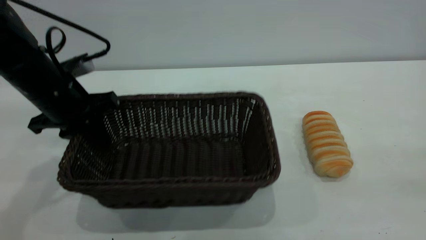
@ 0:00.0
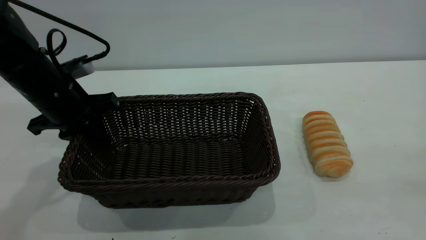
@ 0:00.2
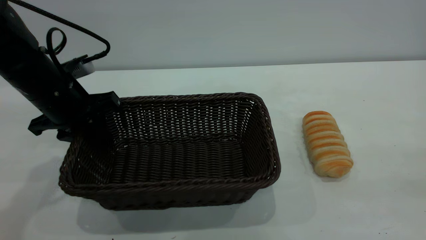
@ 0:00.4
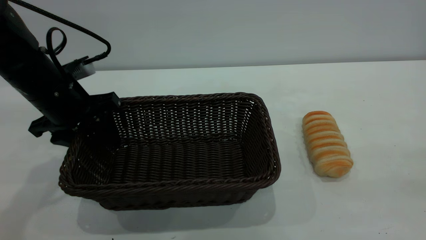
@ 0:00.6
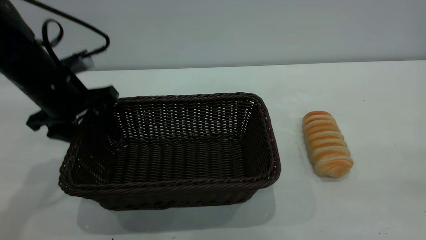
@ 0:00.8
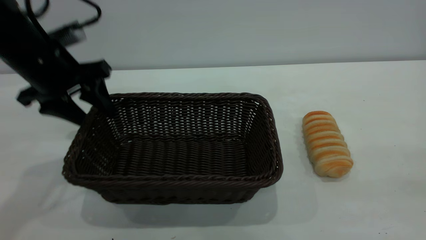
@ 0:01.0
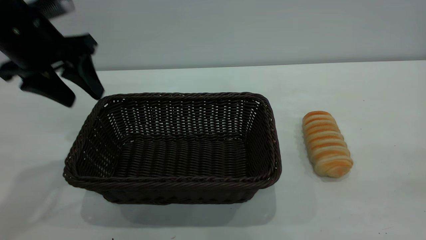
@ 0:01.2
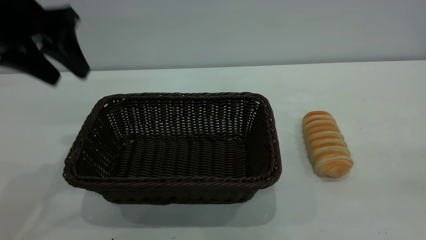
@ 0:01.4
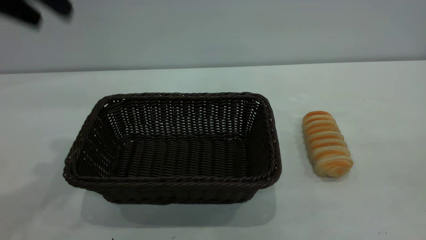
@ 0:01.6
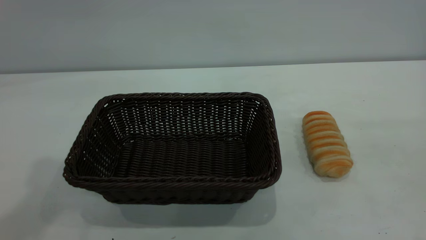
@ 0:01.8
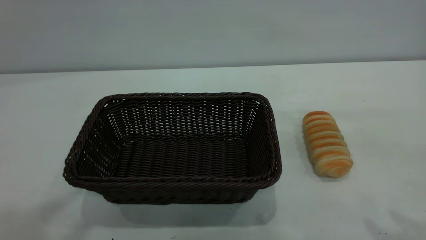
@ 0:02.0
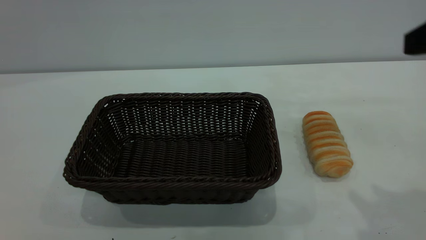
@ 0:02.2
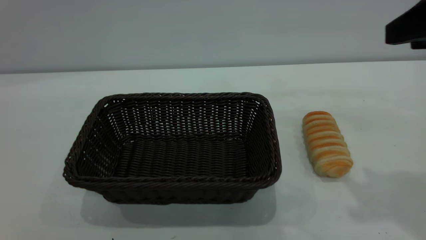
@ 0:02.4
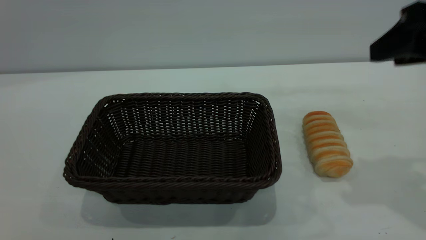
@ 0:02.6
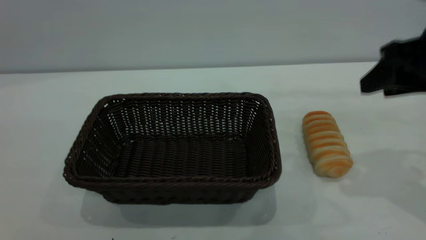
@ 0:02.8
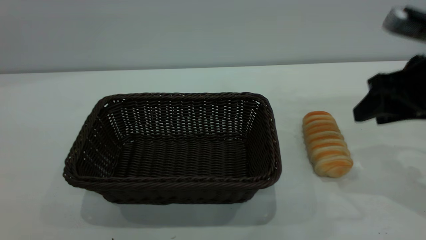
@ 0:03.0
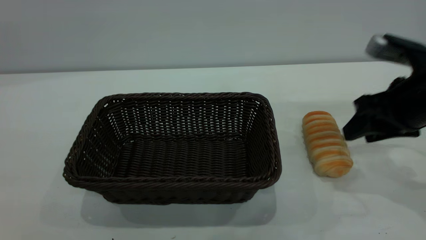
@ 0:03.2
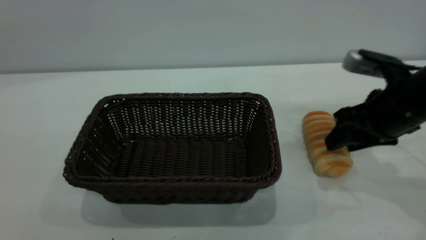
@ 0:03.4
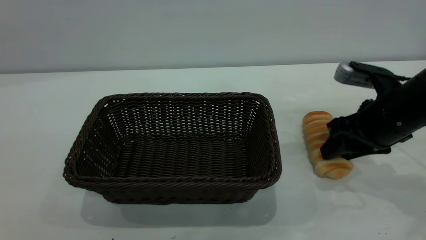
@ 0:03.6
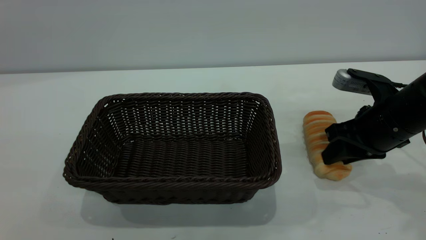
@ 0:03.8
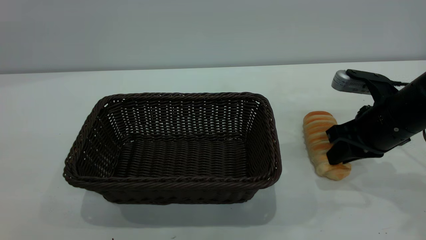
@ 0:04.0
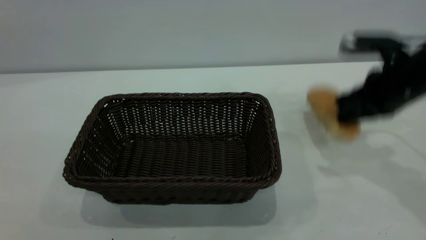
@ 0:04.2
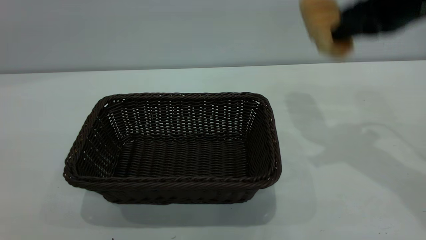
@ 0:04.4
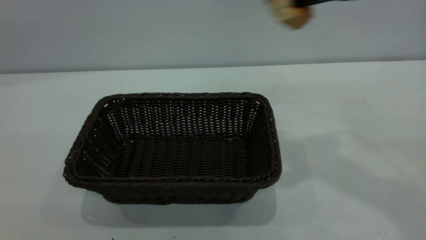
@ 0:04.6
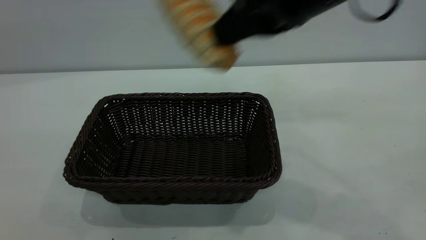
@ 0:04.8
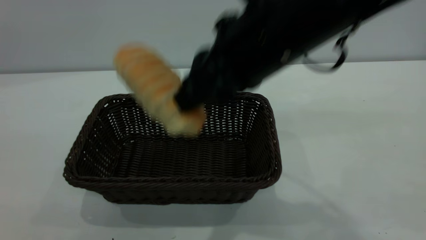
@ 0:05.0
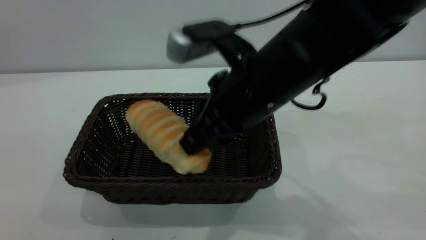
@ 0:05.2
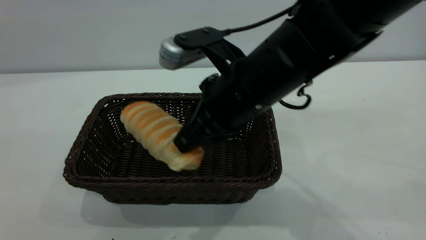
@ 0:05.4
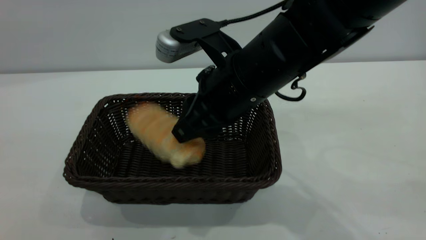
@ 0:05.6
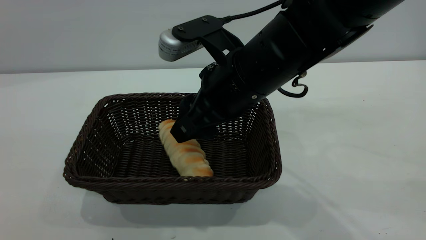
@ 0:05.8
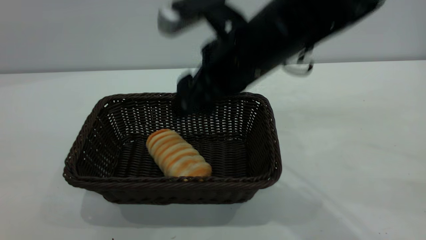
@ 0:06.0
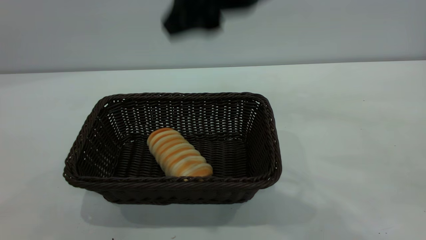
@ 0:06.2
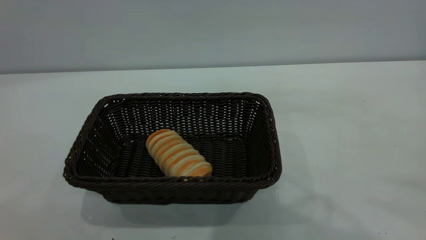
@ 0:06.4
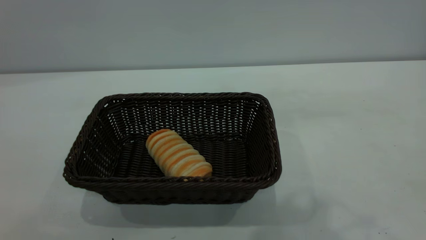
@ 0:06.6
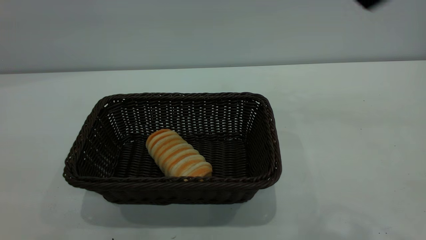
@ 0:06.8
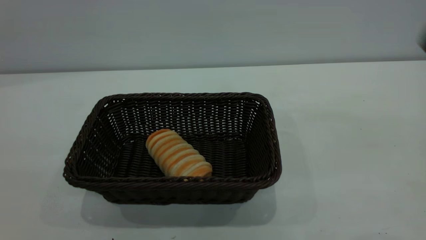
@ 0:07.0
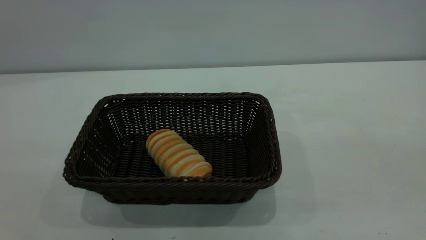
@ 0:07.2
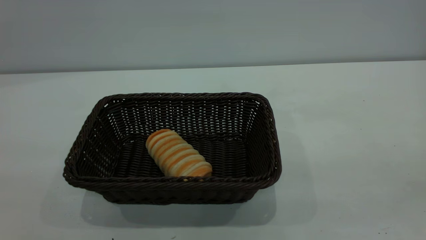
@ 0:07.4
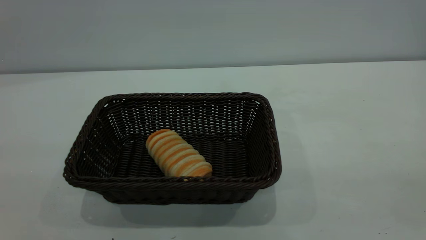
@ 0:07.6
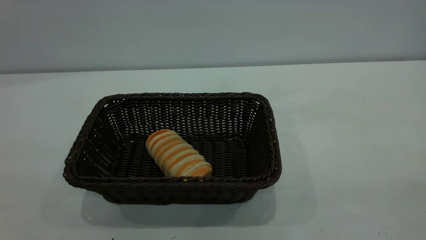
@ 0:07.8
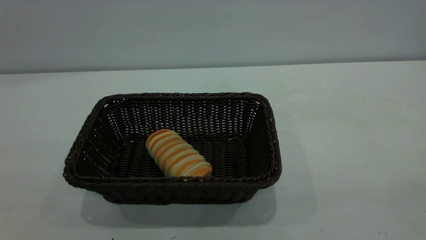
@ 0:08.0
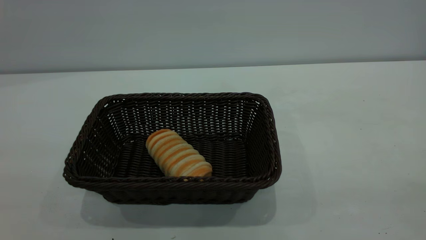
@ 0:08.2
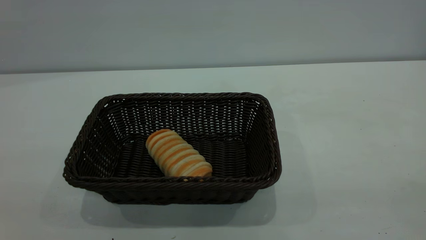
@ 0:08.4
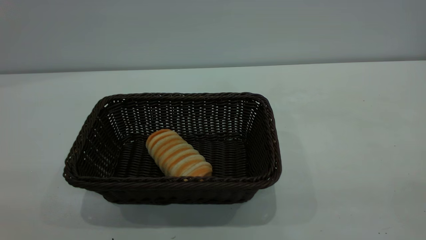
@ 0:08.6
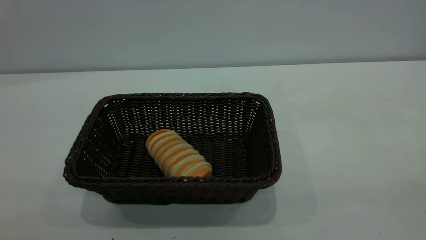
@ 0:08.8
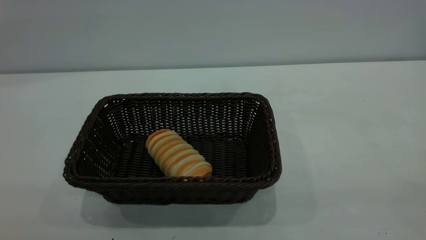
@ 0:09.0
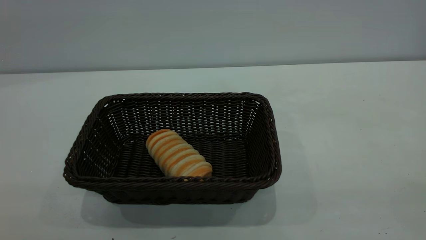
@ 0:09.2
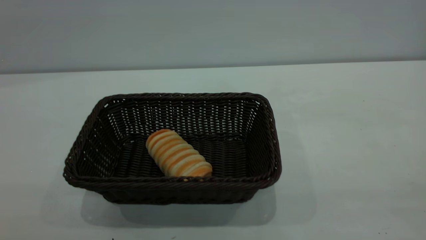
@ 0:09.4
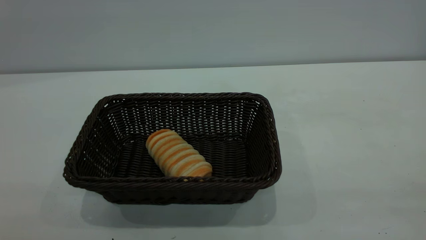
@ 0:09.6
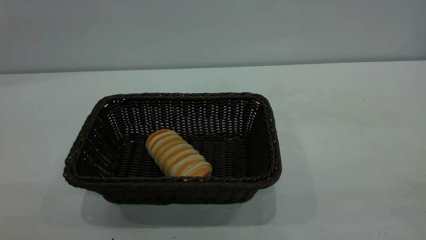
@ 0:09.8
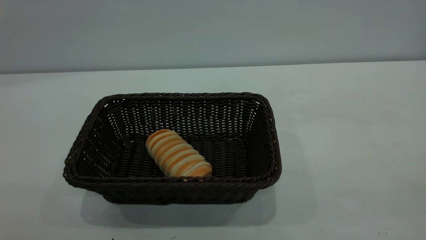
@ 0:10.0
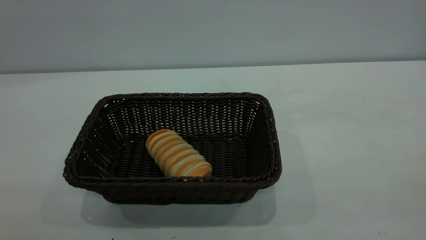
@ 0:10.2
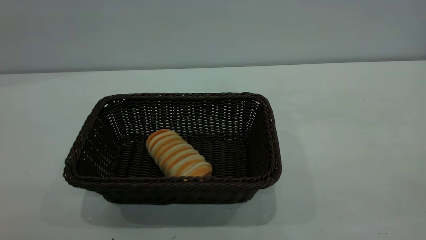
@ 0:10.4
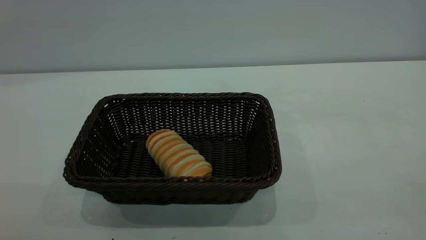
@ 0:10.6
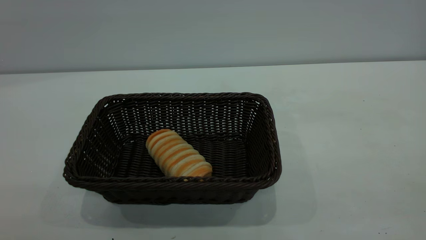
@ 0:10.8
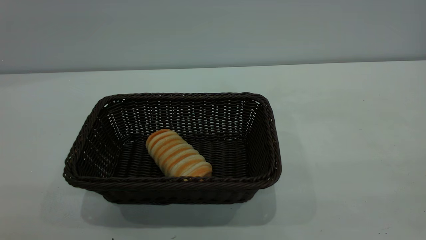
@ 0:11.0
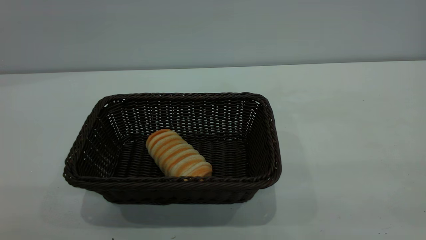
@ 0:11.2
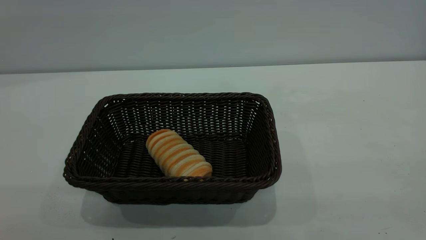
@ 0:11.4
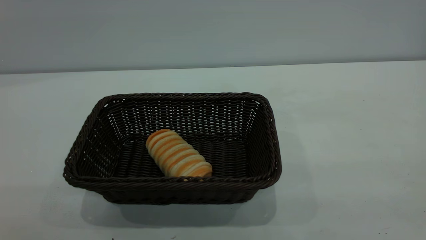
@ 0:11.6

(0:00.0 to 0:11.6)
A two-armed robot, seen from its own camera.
Task of the whole recording: One hand grasps the black basket and places it in the middle of the table, while the other hand picks up the long bread and puts it into the black basket.
Step, 0:04.4 - 0:06.0: place the bread into the basket.
0:00.0 - 0:01.4: The left gripper moves upward, roughly 15 cm, and opens its fingers.
0:01.4 - 0:02.8: The right gripper heads forward and downward, covering roughly 30 cm. Meanwhile the left gripper is displaced backward and upward by approximately 40 cm.
0:02.8 - 0:04.4: The right gripper goes roughly 10 cm upward and forward, and closes its fingers.
0:04.4 - 0:05.8: The right gripper heads to the left and downward, covering approximately 20 cm, and opens its fingers.
0:05.8 - 0:07.2: The right gripper heads backward, to the right and upward, covering about 35 cm, while the left gripper is displaced downward by some 10 cm.

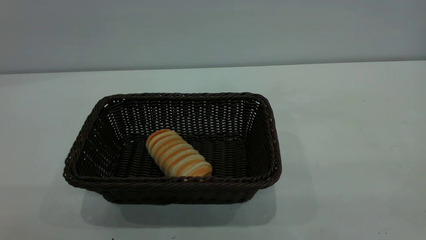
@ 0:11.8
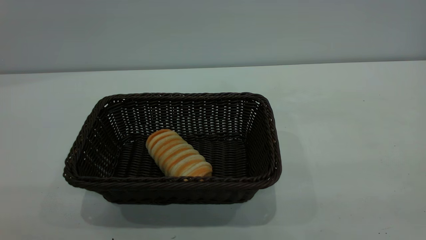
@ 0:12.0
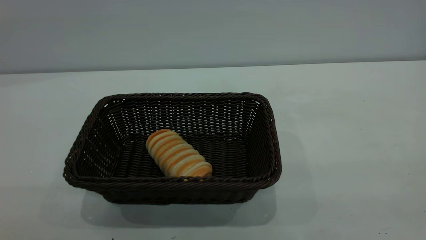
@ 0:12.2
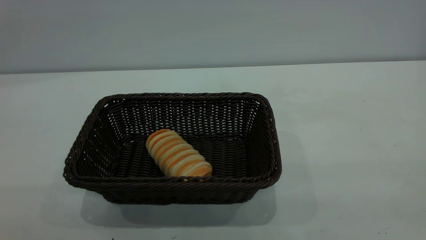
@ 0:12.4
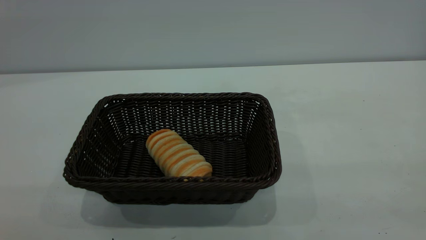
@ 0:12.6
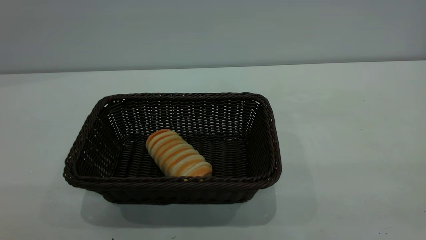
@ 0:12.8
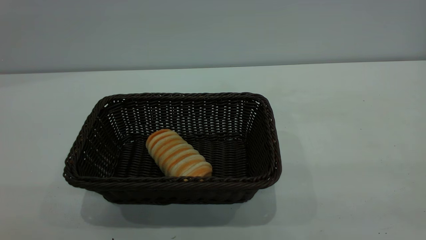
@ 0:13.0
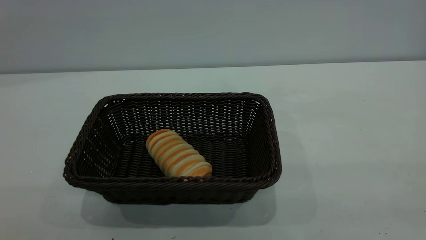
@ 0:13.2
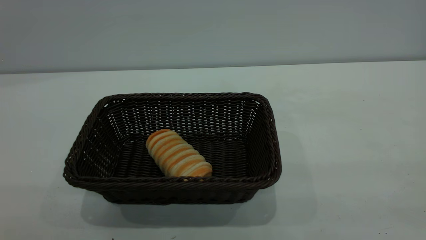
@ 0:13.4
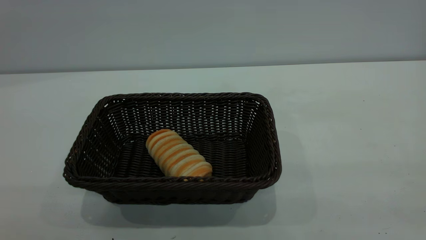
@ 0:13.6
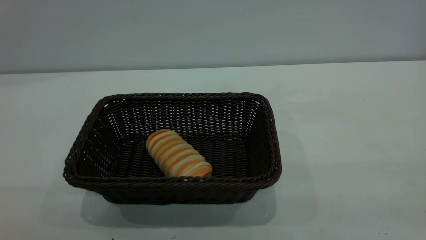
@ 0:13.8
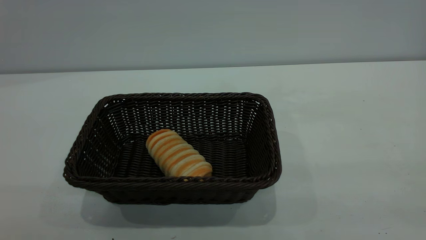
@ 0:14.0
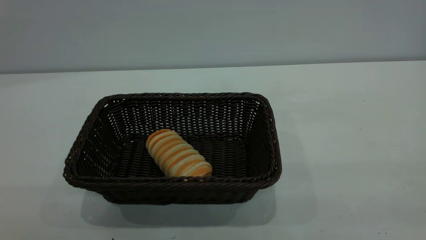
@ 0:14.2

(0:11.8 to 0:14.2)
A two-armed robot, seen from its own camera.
Task of the whole recording: One hand grasps the black basket and places it in the middle of the table, while the other hand picks up the long bread and puts it into the black basket.
0:13.0 - 0:14.2: Both grippers stay about where they are.
